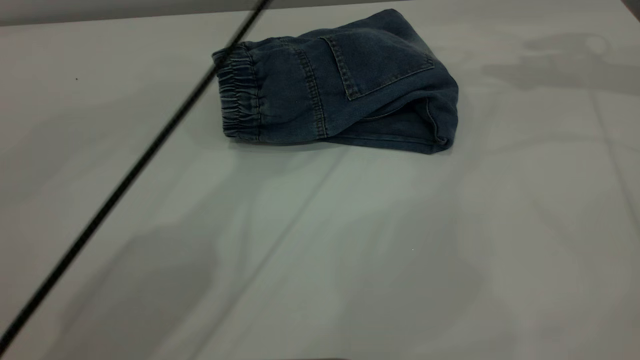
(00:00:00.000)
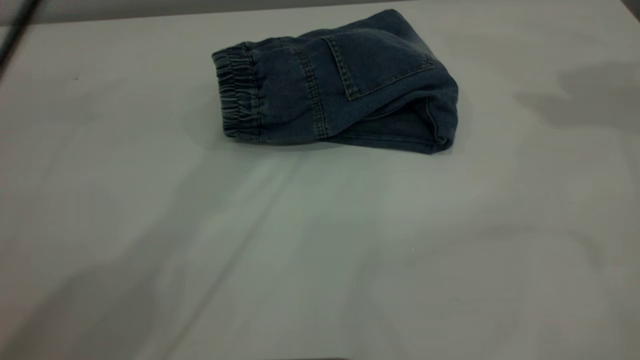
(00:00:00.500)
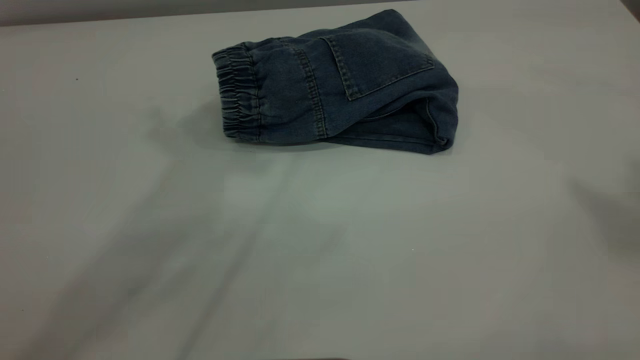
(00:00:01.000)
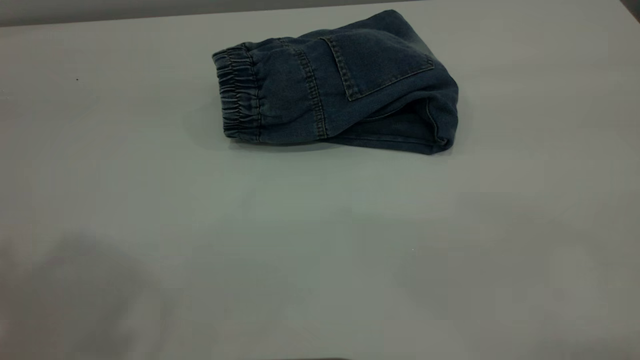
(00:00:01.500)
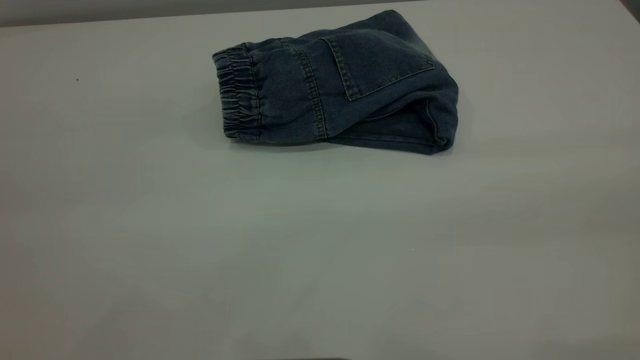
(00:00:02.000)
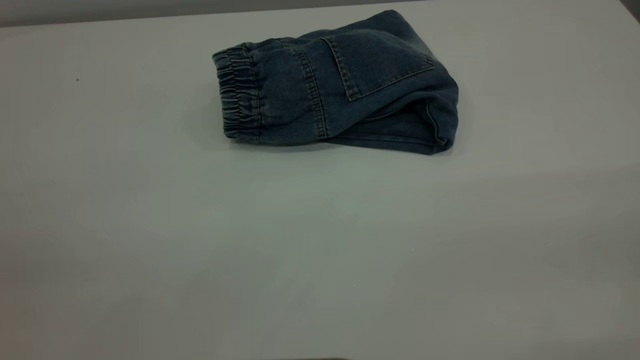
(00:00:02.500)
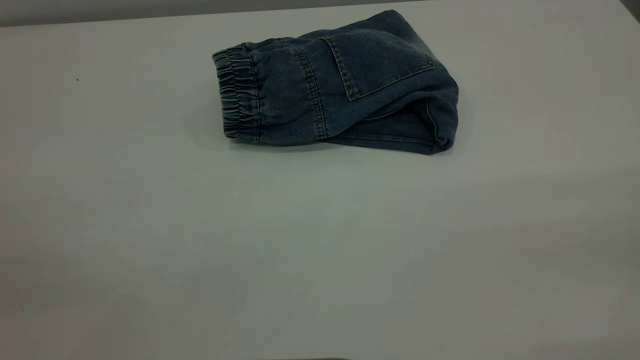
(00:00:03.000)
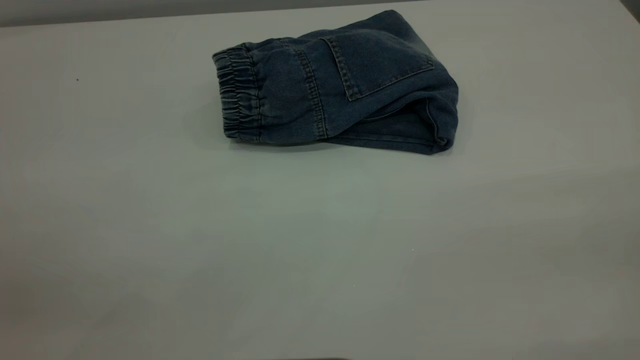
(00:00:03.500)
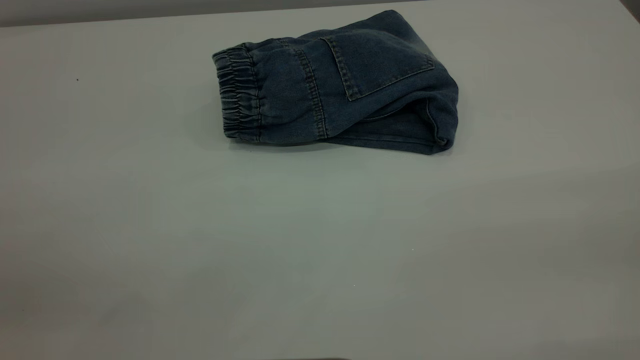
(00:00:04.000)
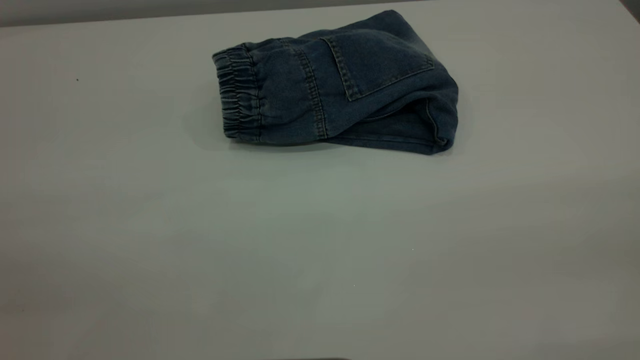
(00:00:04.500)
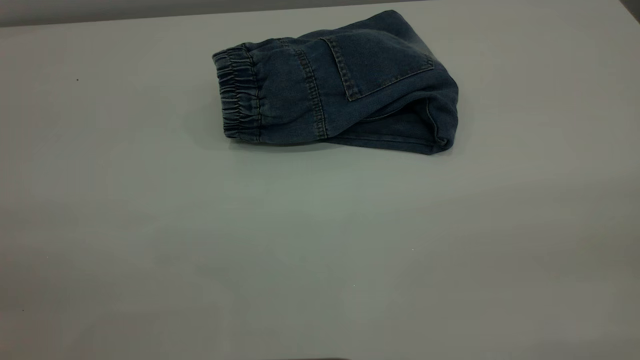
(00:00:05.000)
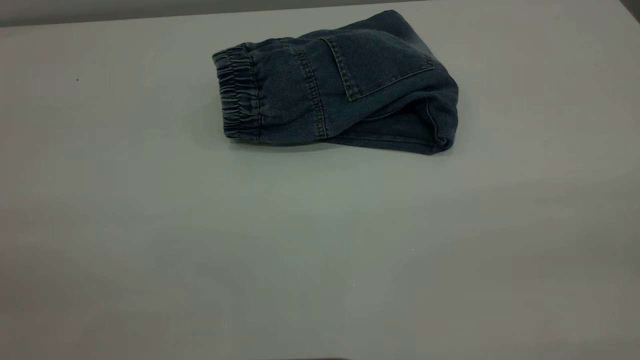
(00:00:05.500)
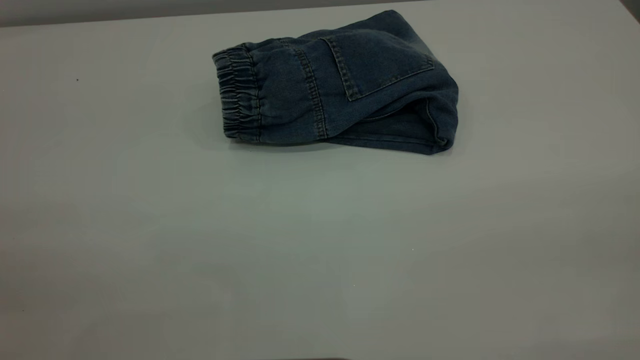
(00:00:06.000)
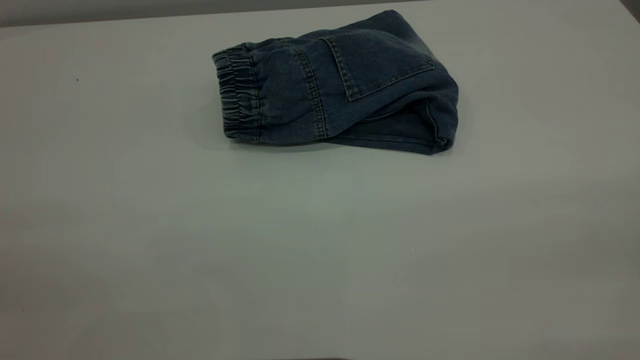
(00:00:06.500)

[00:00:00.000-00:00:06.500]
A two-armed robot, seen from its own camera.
00:00:00.000 to 00:00:02.000: The left gripper is displaced backward and to the left by roughly 50 cm.

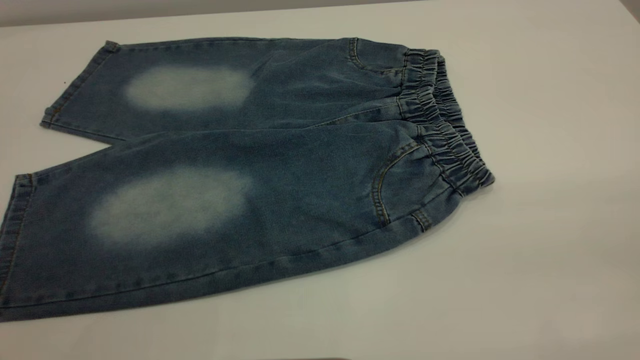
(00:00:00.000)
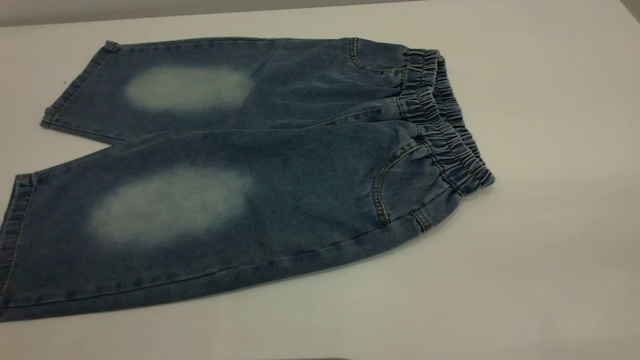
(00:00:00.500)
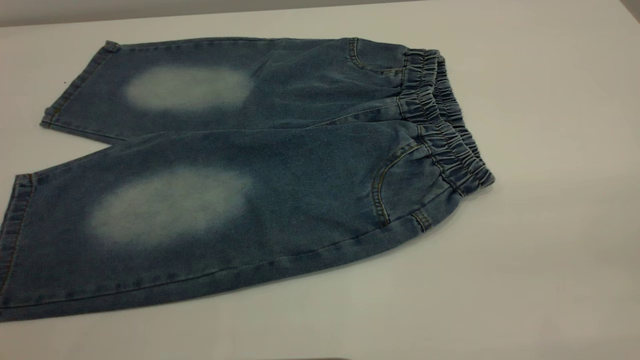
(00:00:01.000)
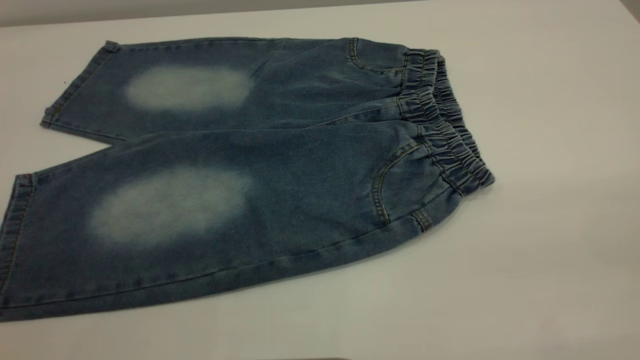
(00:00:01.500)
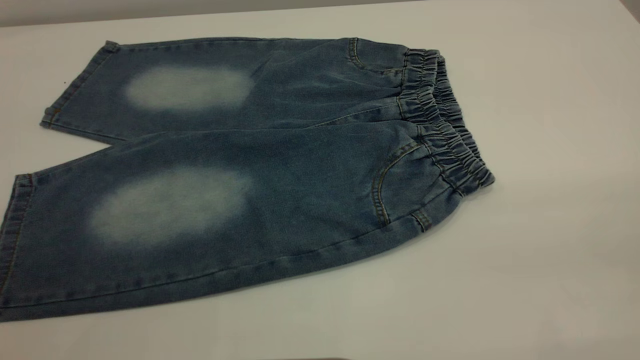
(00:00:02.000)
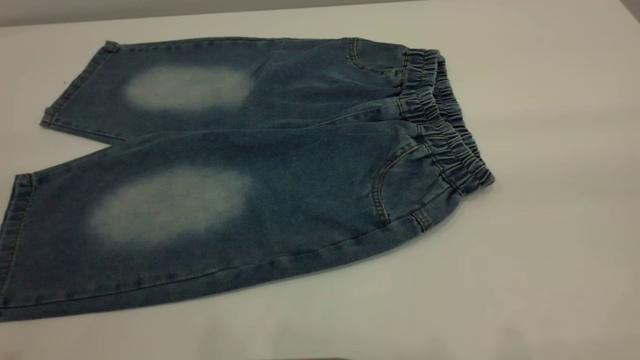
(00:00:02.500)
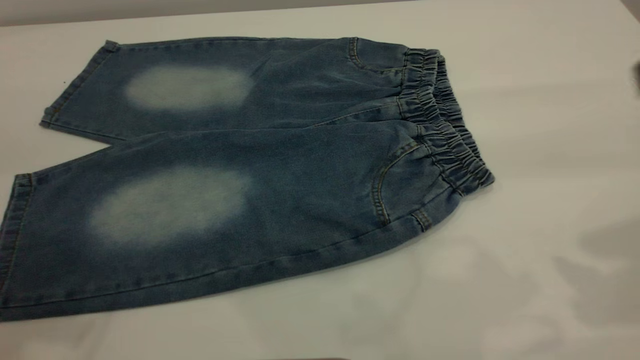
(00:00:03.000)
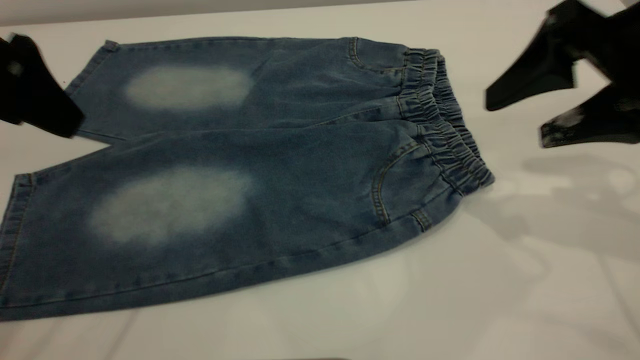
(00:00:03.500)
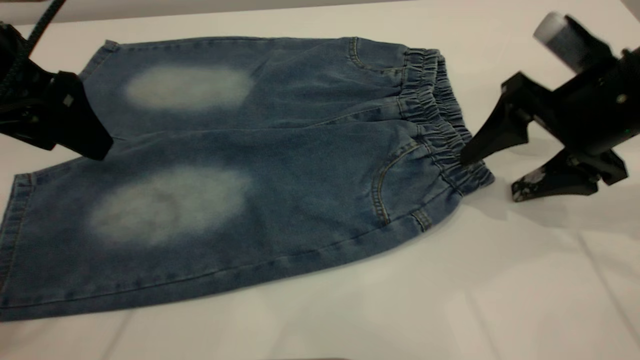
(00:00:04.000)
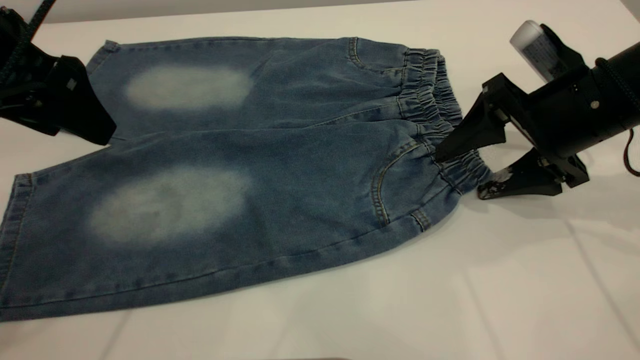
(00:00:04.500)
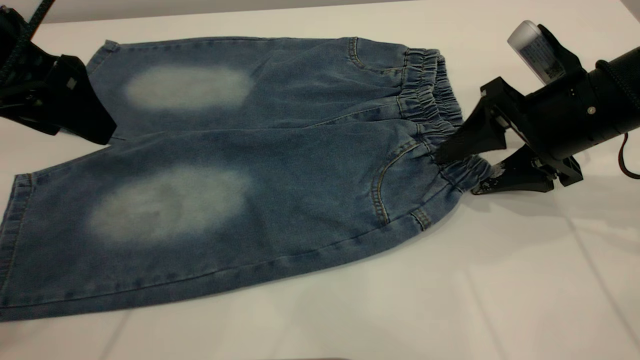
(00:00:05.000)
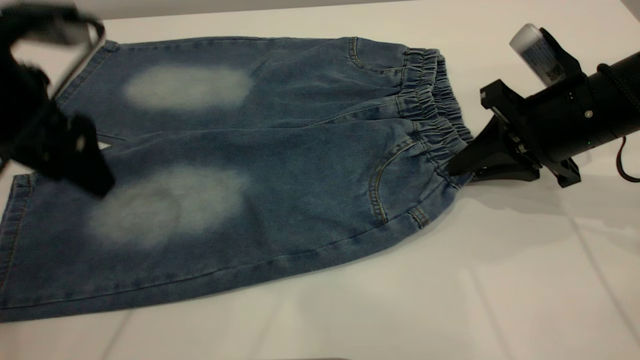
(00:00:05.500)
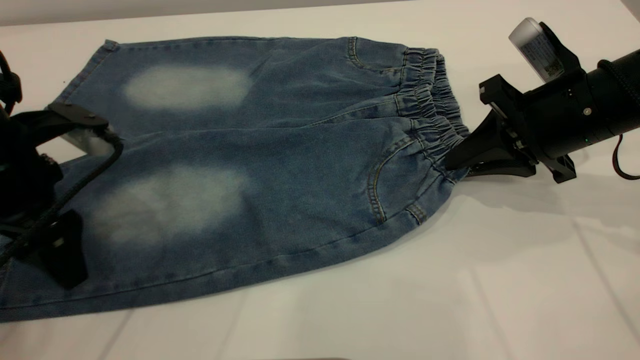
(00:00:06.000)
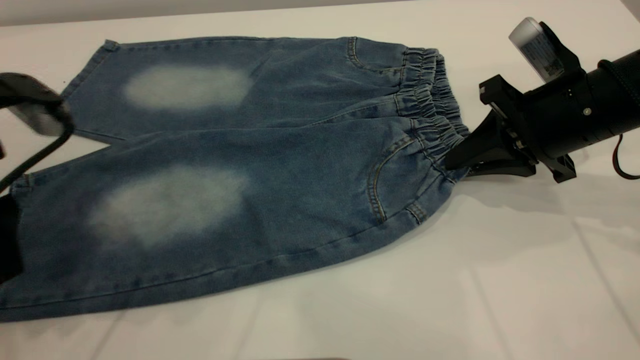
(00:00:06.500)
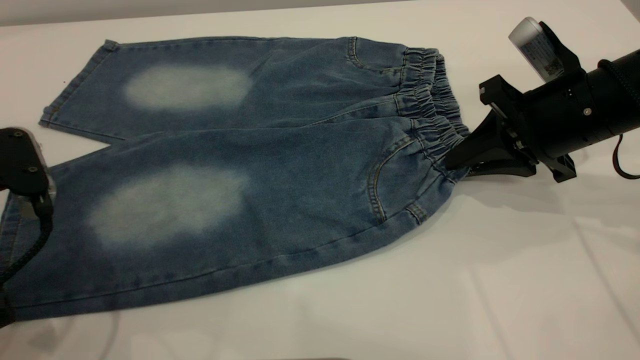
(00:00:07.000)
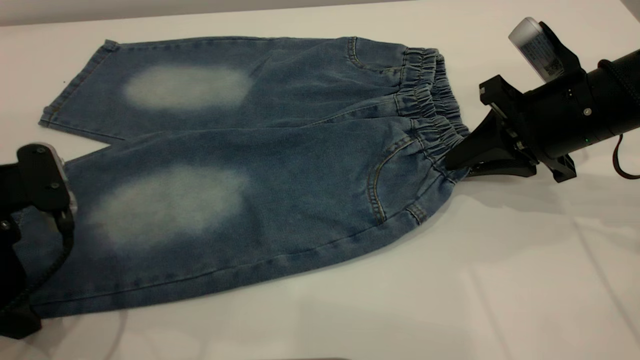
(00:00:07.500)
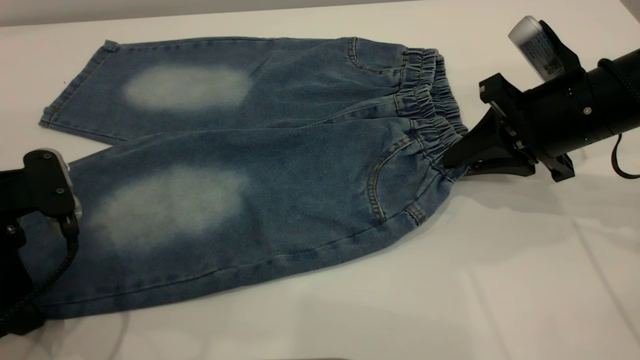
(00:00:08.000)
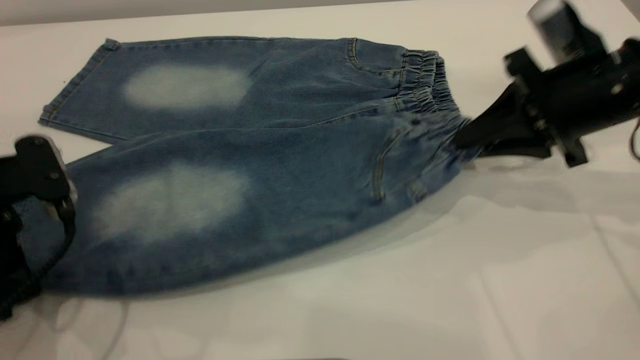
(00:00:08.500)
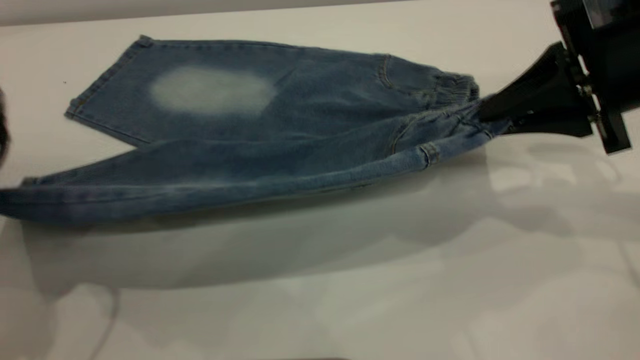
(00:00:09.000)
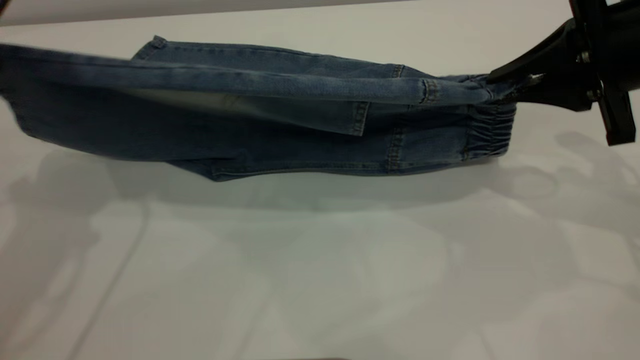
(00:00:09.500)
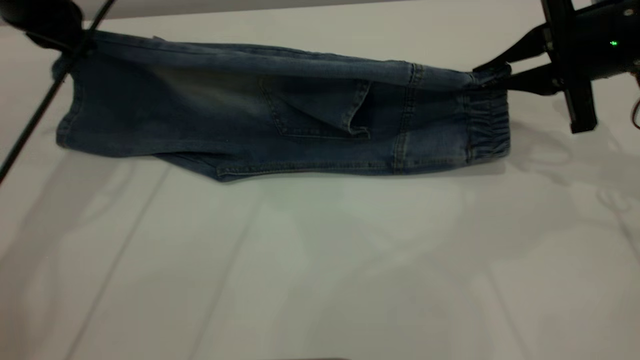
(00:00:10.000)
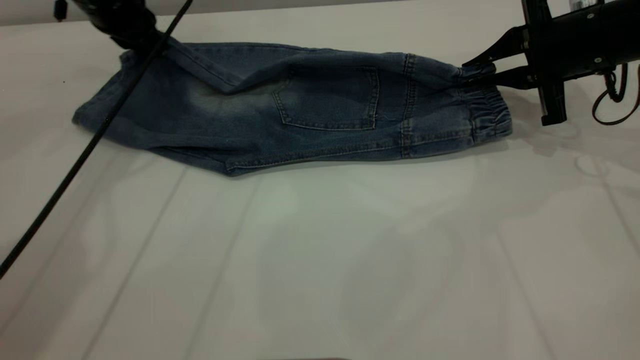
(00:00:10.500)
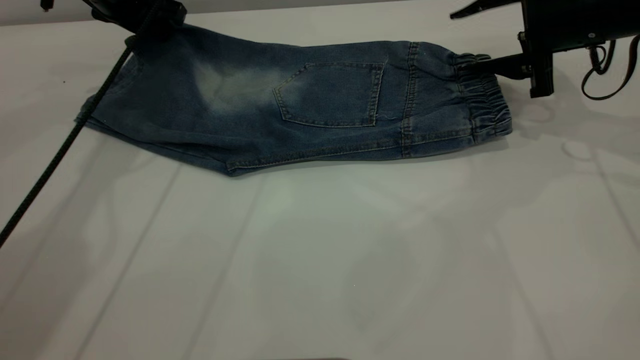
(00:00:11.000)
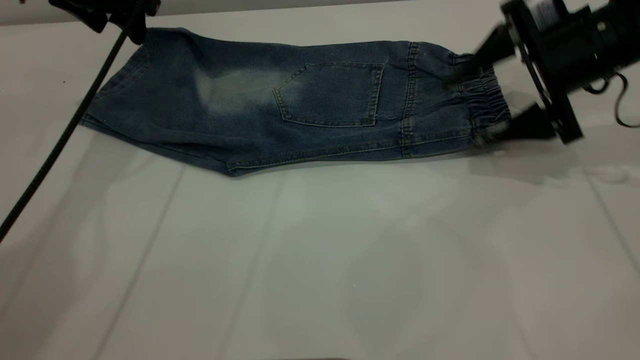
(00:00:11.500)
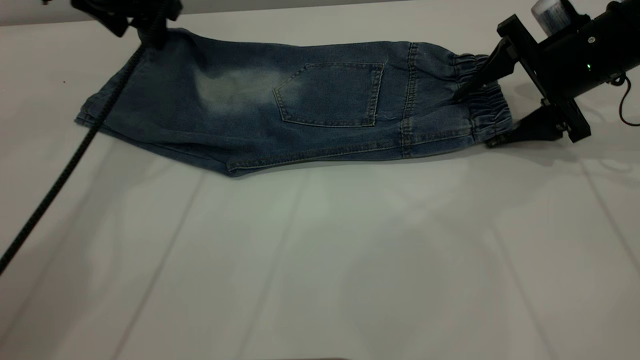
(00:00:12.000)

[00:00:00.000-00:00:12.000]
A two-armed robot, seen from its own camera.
Step, 00:00:00.000 to 00:00:11.000: Fold the bottom of the pants upward.
00:00:00.000 to 00:00:02.000: Both grippers stay about where they are.
00:00:02.000 to 00:00:04.000: The left gripper goes approximately 30 cm forward. Meanwhile the right gripper goes approximately 40 cm forward and downward.
00:00:04.000 to 00:00:06.000: The right gripper closes its fingers; the left gripper is displaced downward by roughly 10 cm.
00:00:06.000 to 00:00:08.000: The left gripper travels backward by some 5 cm, and closes.
00:00:08.000 to 00:00:10.000: The left gripper is displaced forward and upward by about 25 cm, and closes up, while the right gripper moves about 5 cm.
00:00:10.000 to 00:00:12.000: The right gripper opens up, while the left gripper goes about 5 cm to the right, and opens up.

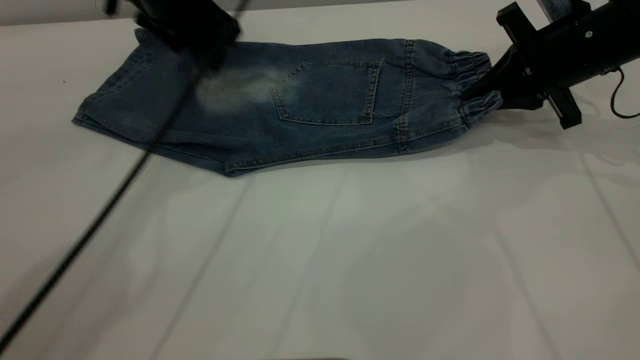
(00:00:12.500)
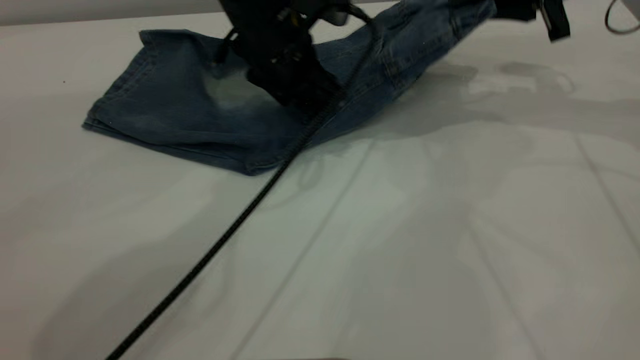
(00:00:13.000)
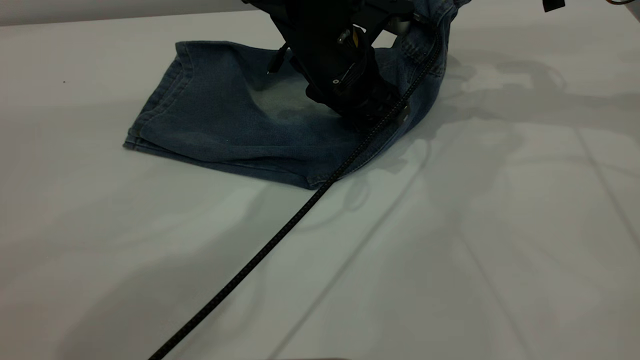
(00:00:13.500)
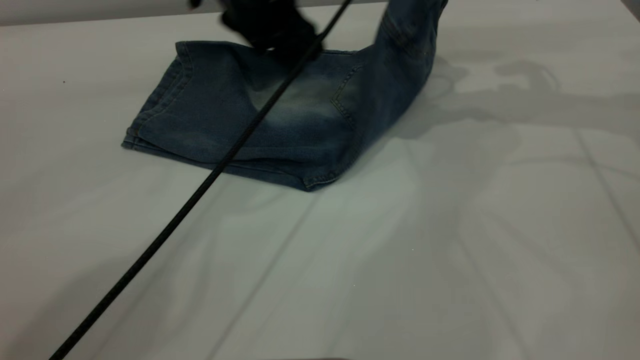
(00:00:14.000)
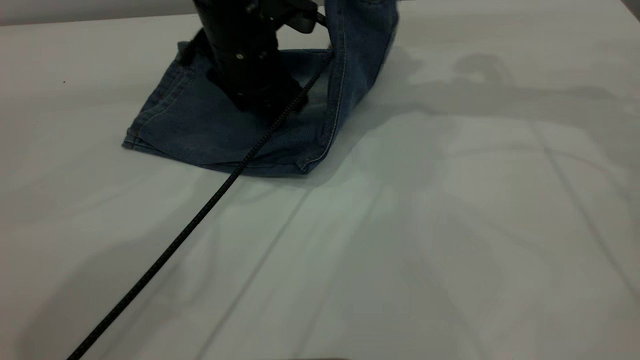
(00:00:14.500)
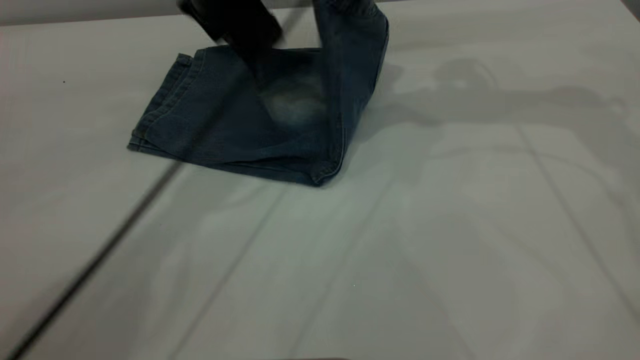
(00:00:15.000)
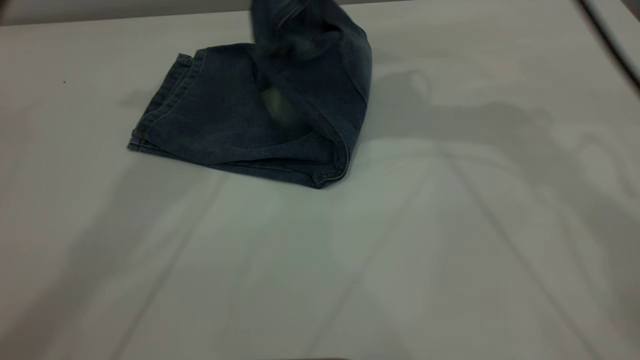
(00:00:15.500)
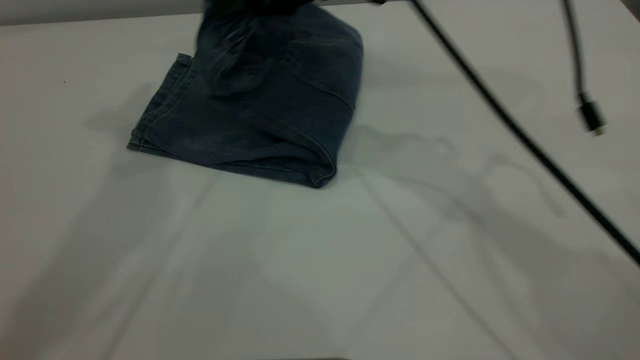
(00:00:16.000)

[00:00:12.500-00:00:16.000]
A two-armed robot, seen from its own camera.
00:00:12.500 to 00:00:14.500: The left gripper travels to the right by approximately 5 cm, while the right gripper goes approximately 15 cm upward and to the left.
00:00:14.500 to 00:00:16.000: The left gripper is displaced upward by some 35 cm. The right gripper heads to the left, covering approximately 20 cm.
